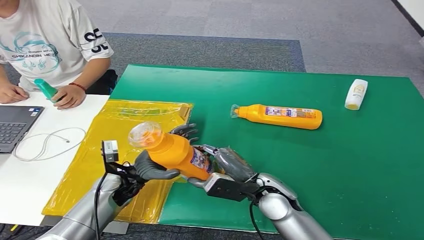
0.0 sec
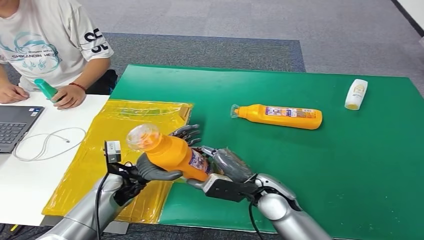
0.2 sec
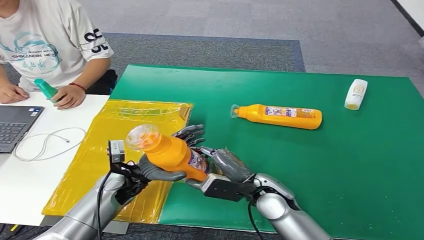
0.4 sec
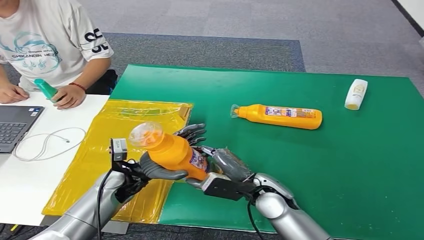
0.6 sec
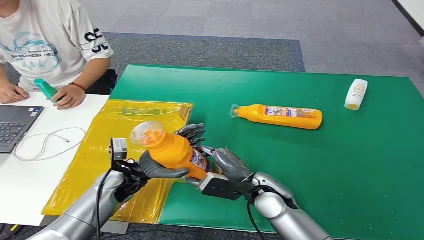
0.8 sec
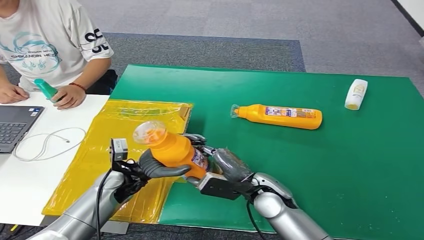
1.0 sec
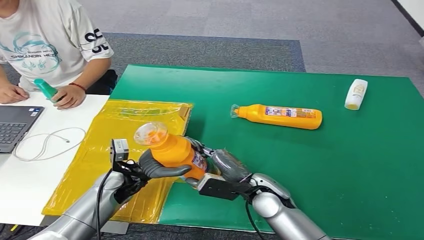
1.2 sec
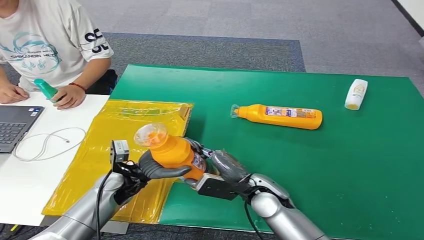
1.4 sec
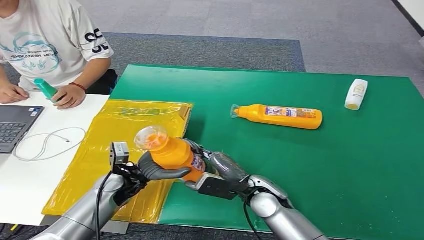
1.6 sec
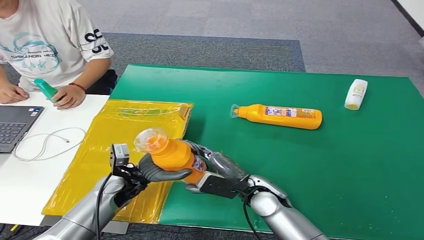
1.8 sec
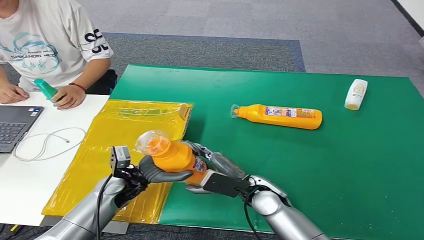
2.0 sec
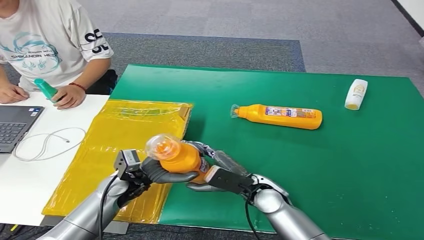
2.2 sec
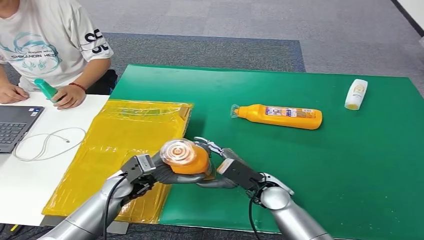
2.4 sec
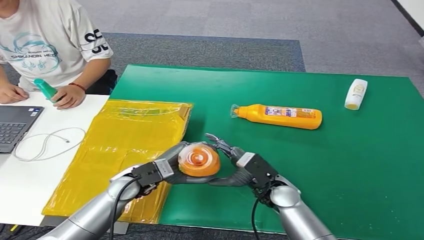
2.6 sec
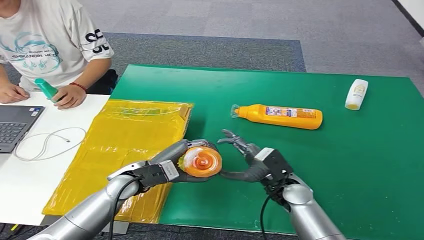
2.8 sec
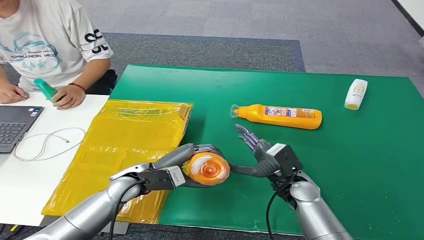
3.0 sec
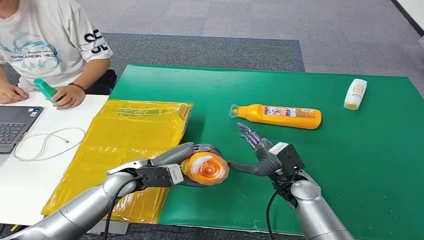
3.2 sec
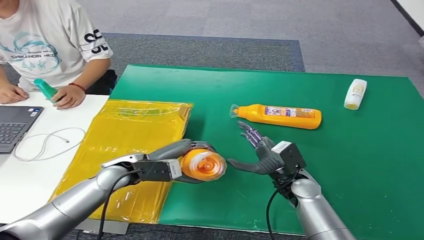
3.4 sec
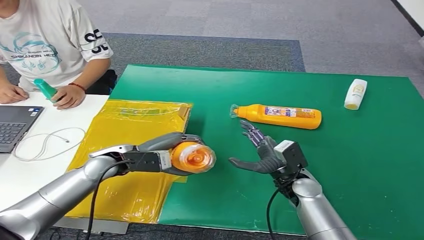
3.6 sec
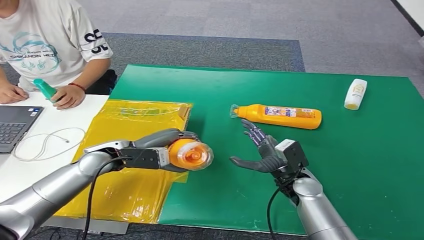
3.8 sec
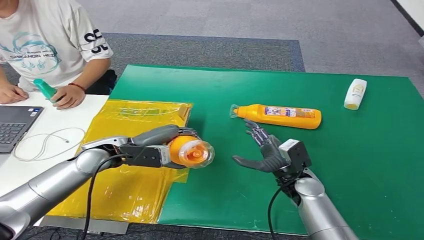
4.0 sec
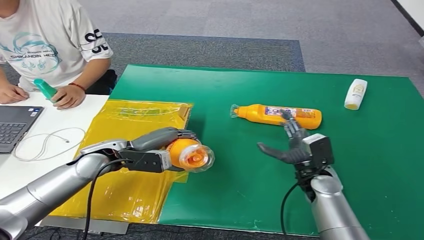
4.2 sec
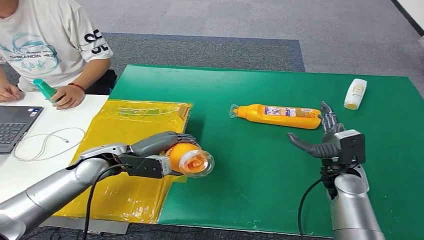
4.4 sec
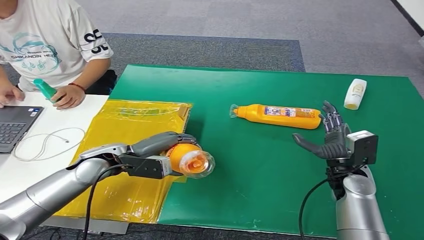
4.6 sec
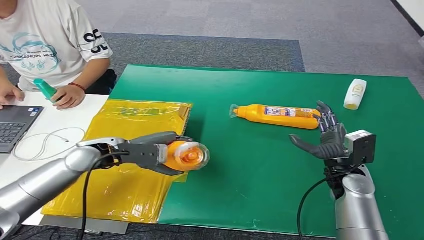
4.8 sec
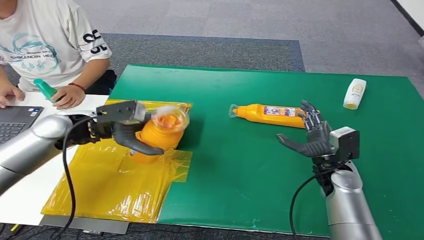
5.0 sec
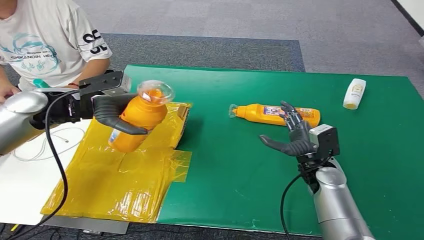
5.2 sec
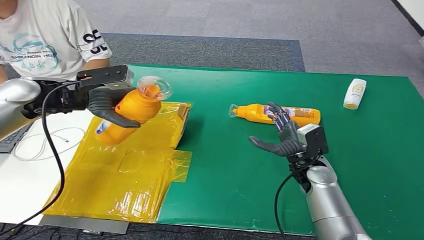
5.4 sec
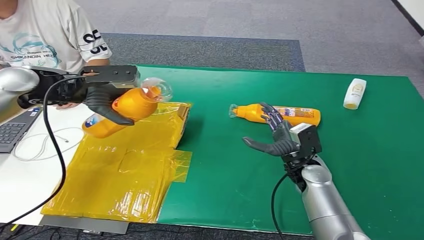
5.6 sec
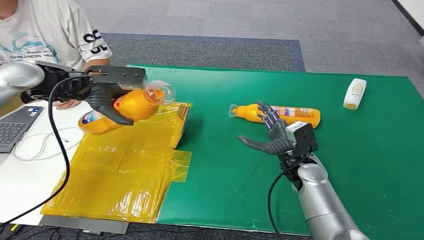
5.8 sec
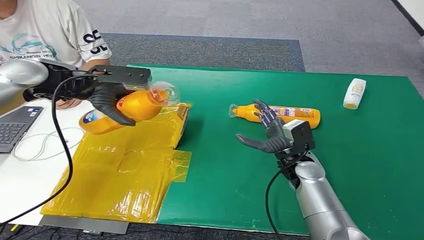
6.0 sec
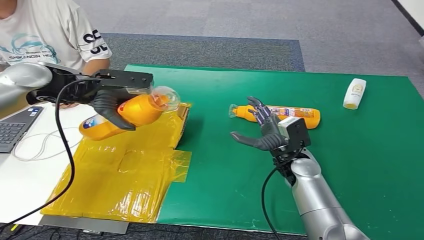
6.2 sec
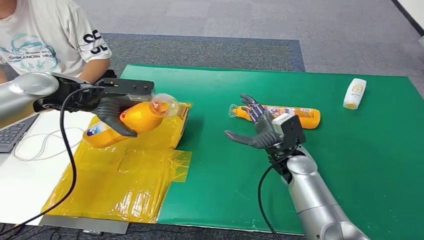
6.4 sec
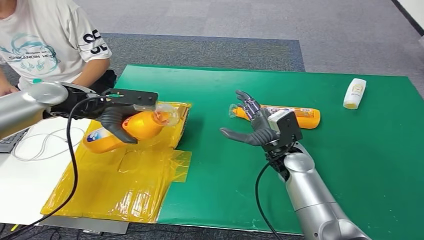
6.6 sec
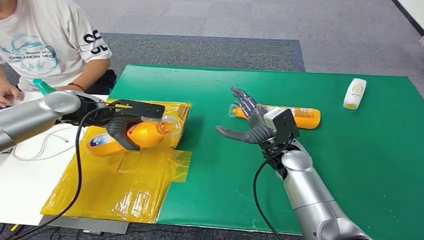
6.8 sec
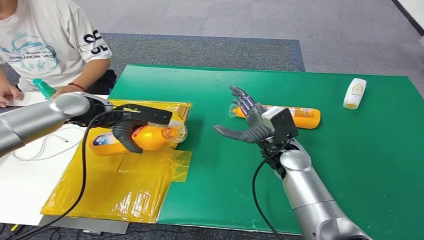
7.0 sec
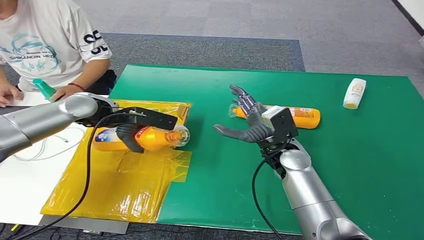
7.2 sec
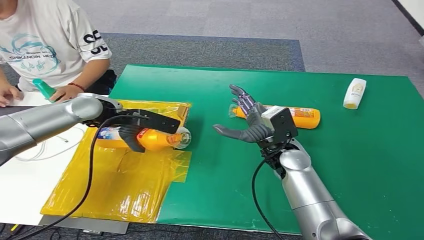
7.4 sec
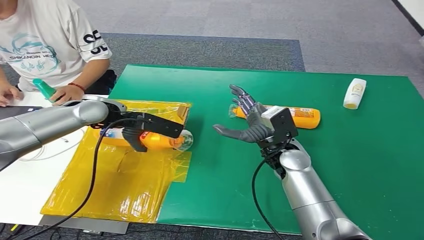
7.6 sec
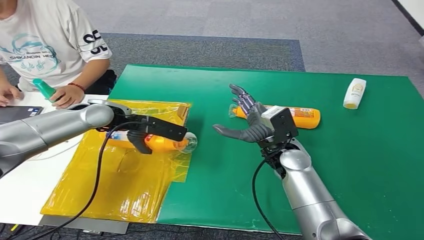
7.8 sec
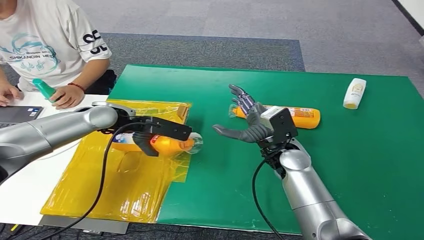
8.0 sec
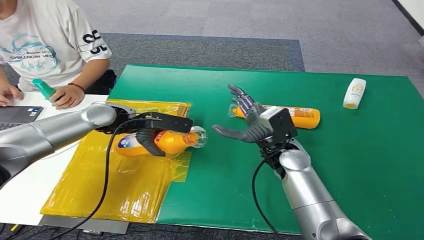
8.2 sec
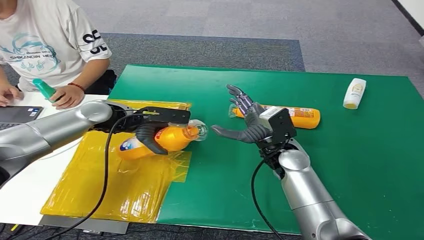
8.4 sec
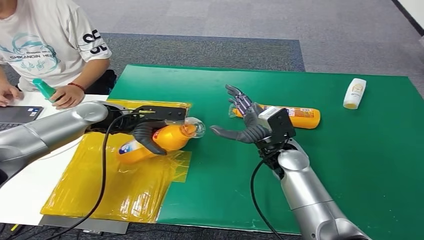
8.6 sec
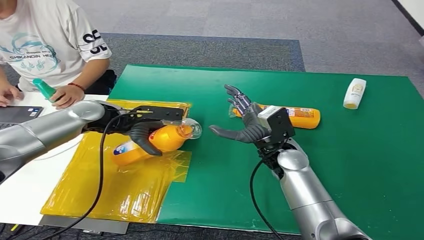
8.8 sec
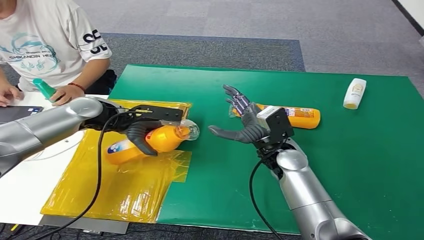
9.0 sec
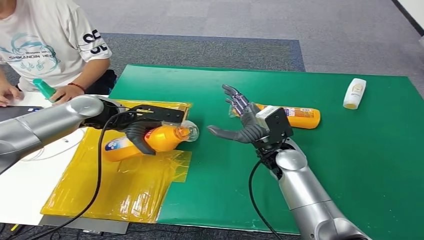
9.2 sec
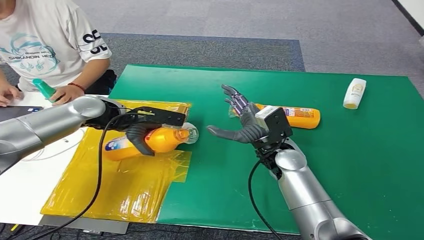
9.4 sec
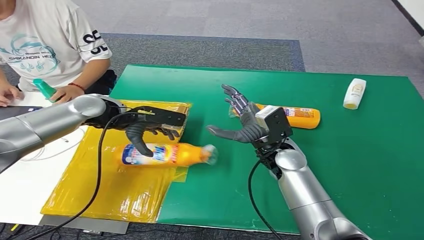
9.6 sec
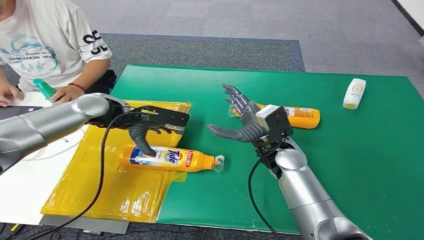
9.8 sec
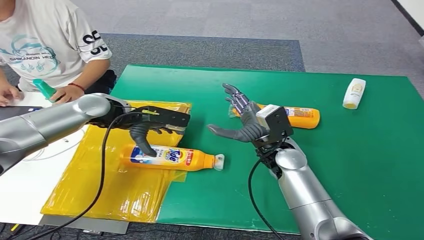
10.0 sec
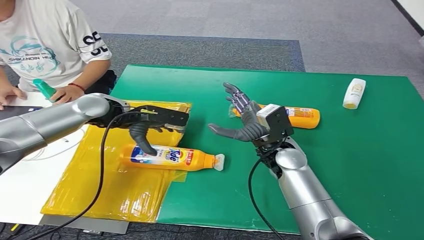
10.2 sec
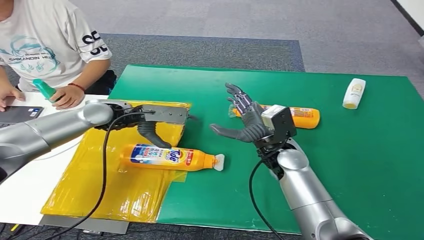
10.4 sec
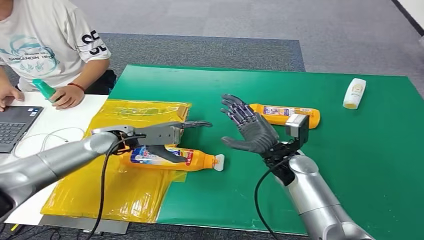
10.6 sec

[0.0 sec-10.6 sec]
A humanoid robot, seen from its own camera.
Step, 0.0 sec to 10.4 sec: Turn the bottle to the front side.
0.0 sec to 1.6 sec: The hands make only small movements.
1.6 sec to 3.0 sec: The right hand shifts approximately 5 cm to the right.

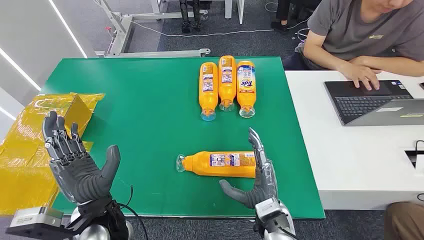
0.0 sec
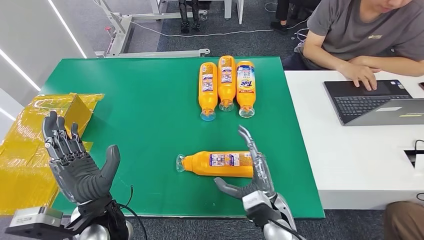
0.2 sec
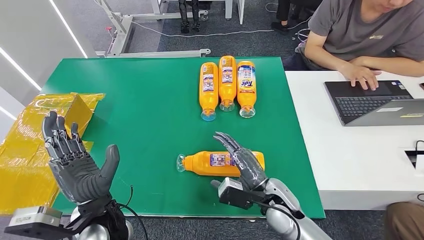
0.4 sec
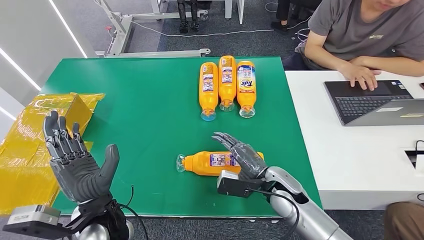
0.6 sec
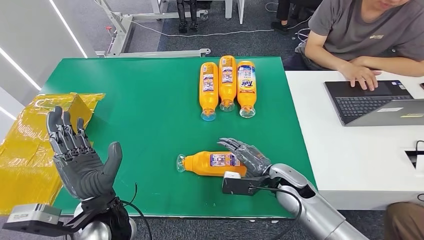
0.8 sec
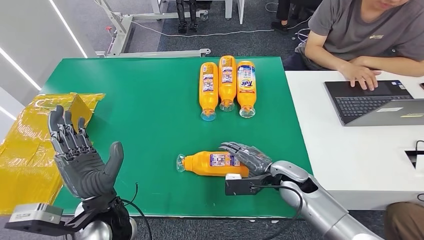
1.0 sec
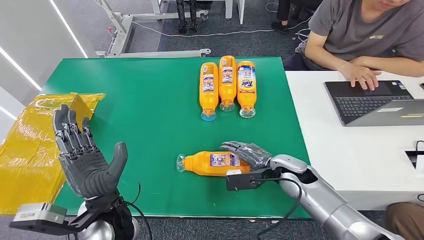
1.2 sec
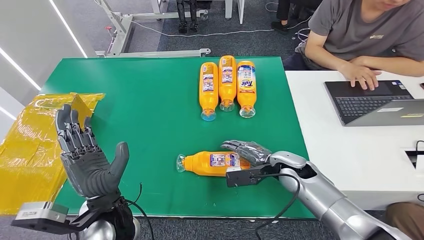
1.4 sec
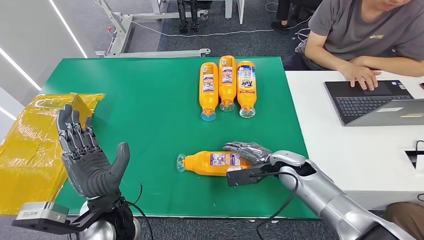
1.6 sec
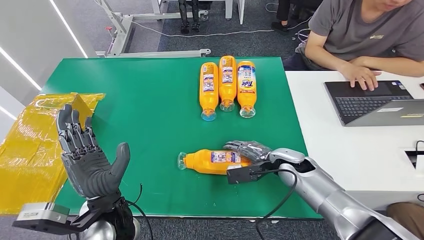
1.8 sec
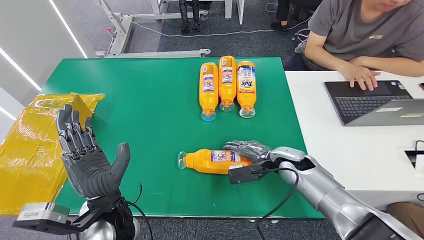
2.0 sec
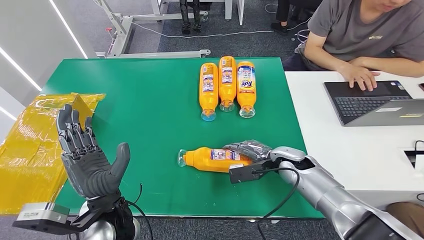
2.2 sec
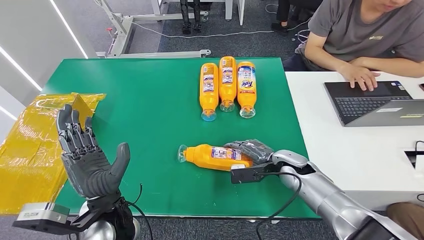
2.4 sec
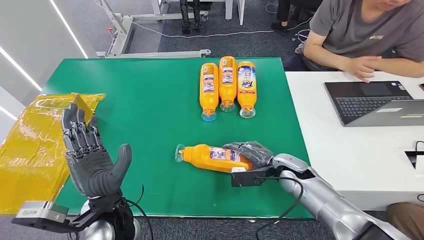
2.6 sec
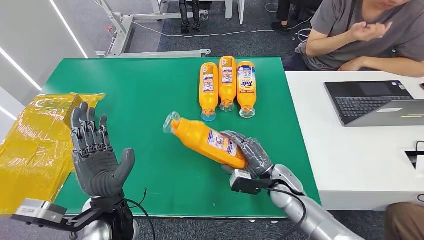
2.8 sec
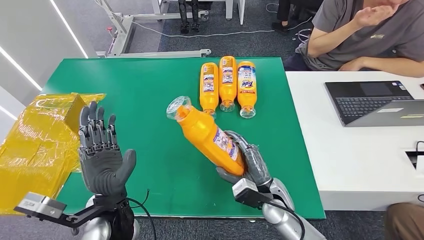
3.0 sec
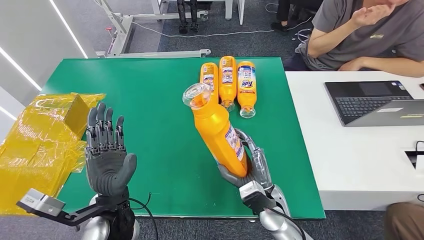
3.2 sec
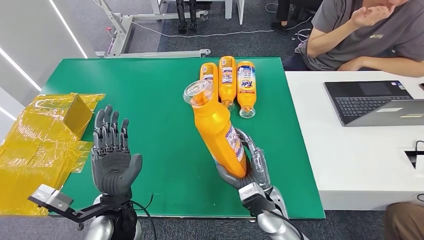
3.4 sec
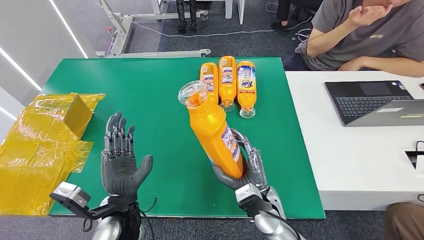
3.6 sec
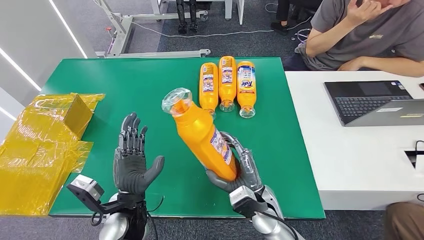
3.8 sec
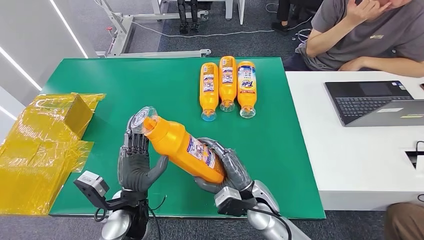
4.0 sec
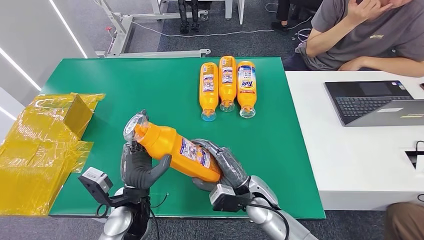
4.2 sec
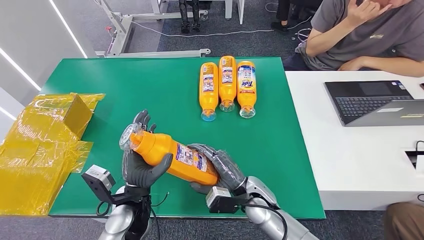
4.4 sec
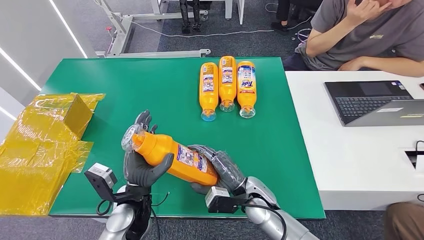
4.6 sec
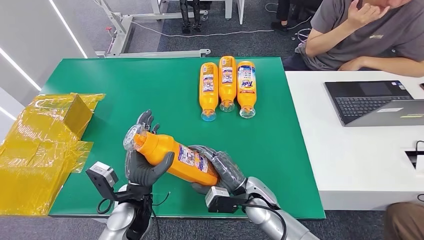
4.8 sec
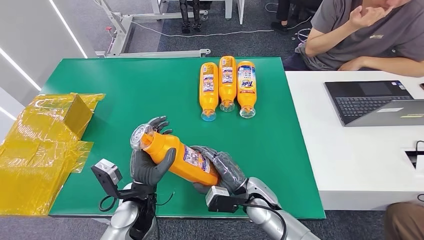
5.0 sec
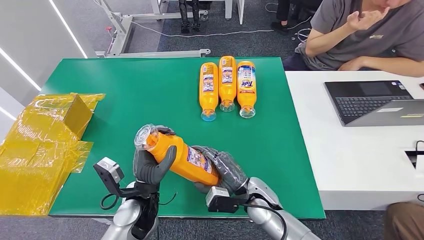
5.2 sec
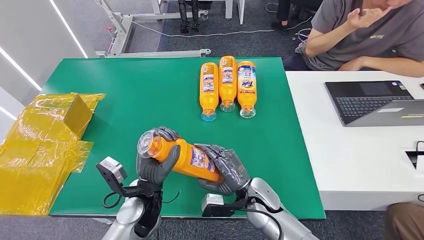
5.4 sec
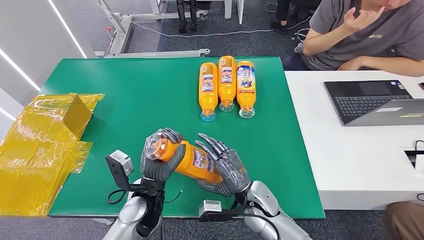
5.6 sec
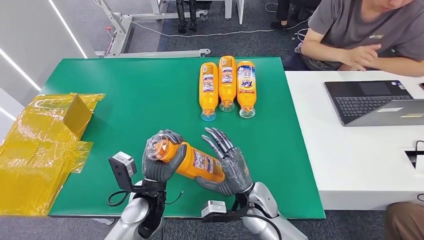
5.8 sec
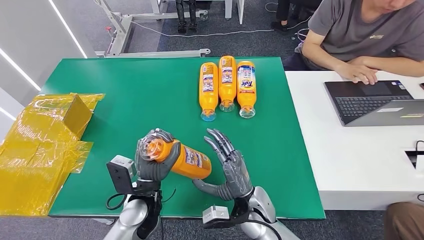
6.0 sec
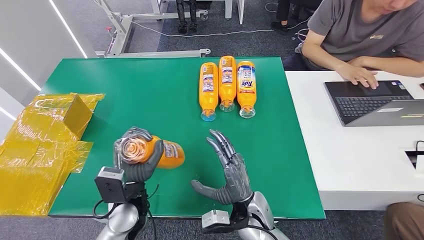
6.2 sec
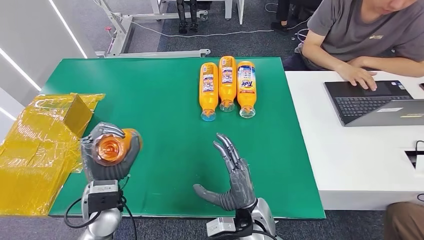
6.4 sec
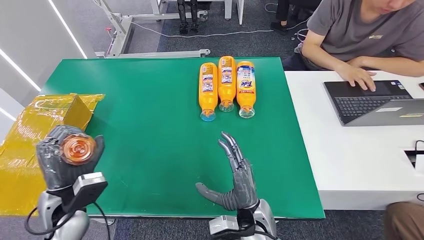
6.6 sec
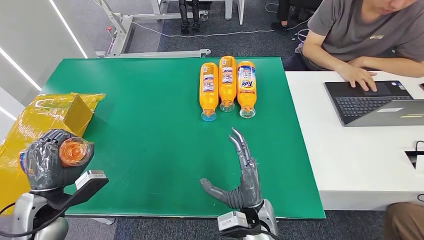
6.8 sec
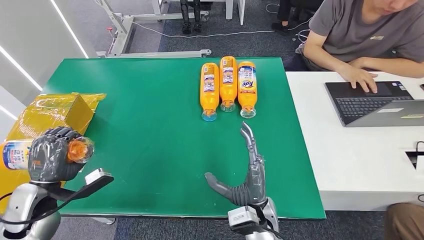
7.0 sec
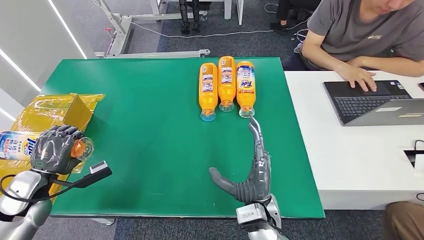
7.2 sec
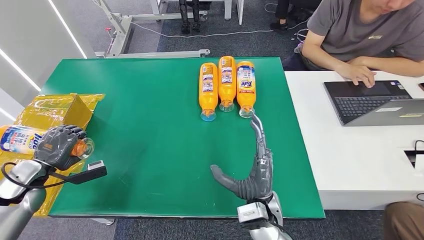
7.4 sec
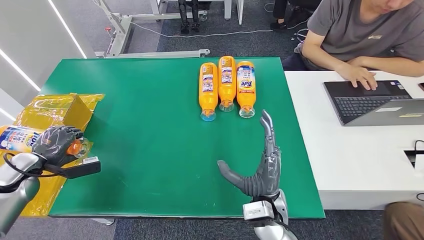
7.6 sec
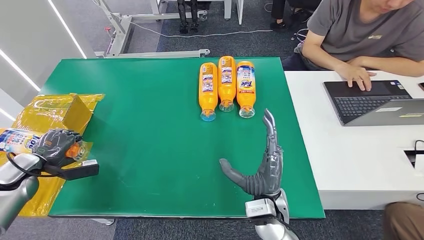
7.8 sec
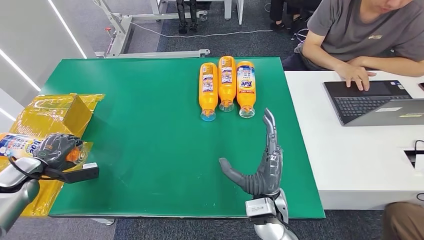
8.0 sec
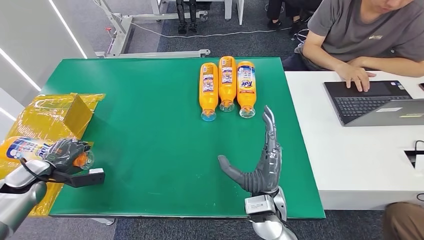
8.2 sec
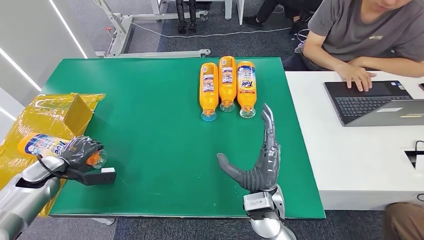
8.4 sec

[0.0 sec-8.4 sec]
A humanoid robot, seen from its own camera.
Step, 0.0 sec to 4.8 sec: Pick up the bottle from the table.
1.4 sec to 2.8 sec: The right hand moves roughly 5 cm.
7.0 sec to 8.4 sec: The left hand moves forward, to the left and downward, roughly 15 cm.
